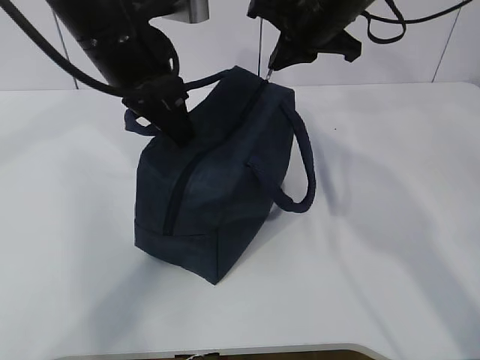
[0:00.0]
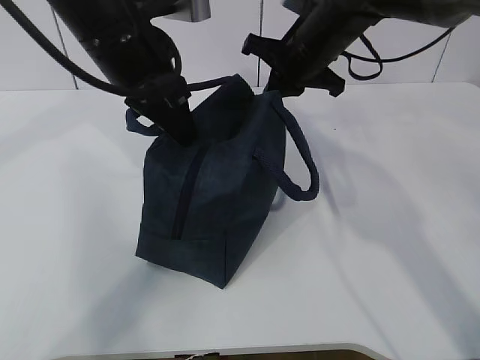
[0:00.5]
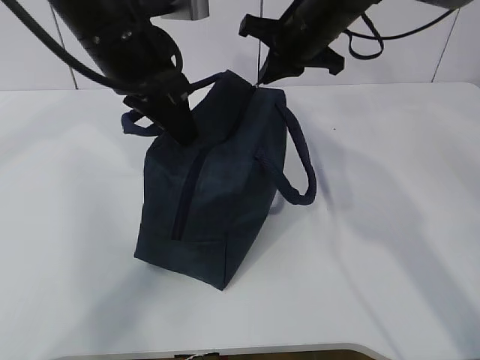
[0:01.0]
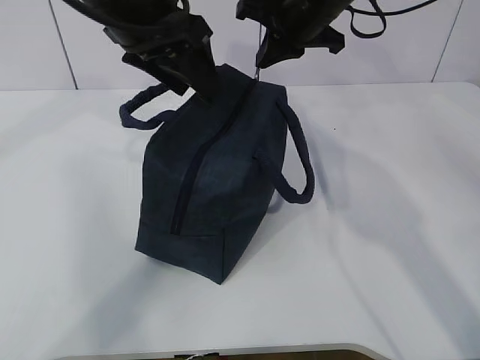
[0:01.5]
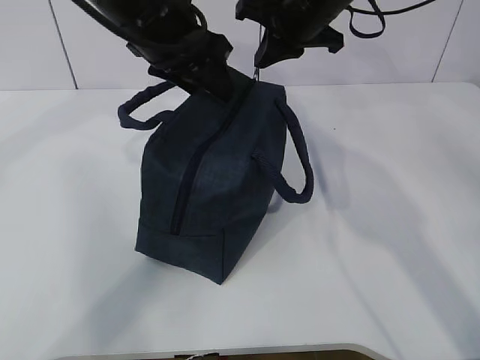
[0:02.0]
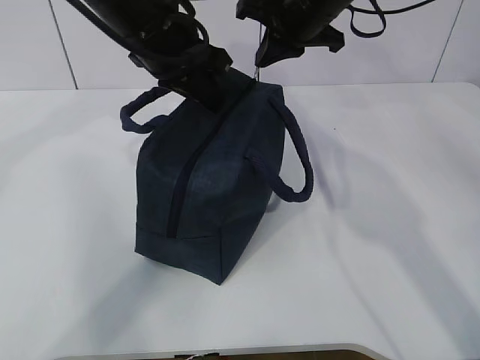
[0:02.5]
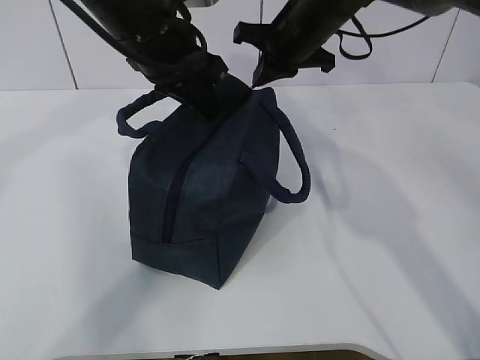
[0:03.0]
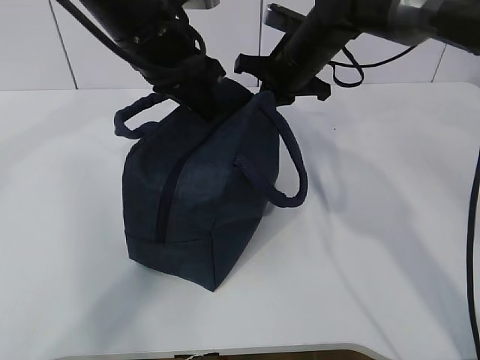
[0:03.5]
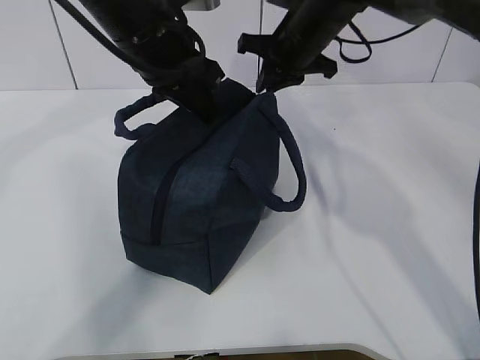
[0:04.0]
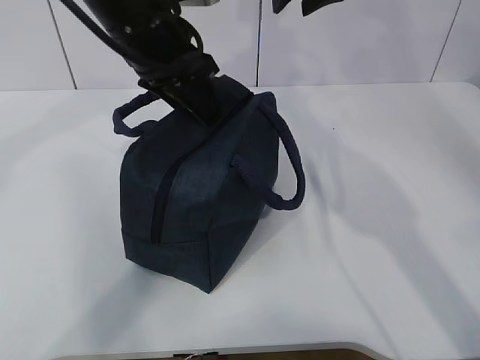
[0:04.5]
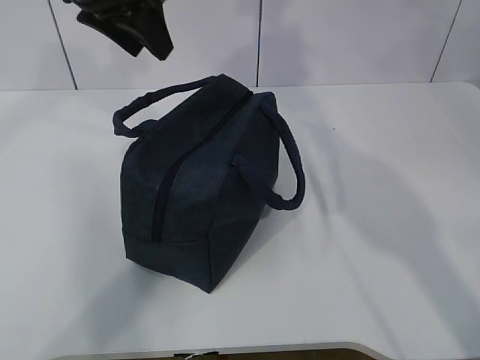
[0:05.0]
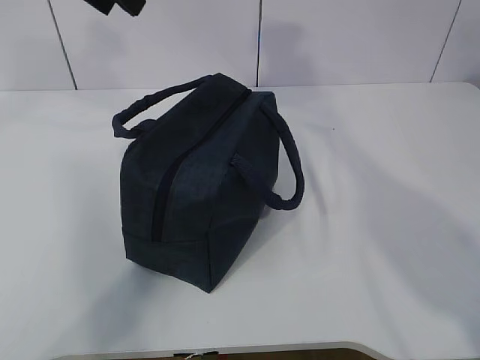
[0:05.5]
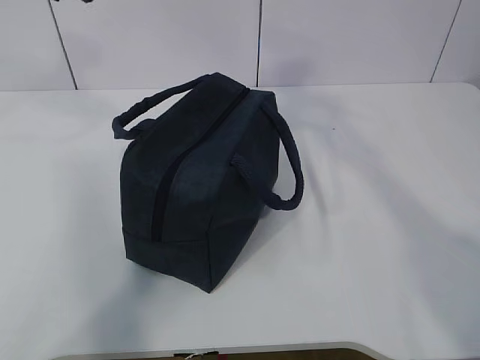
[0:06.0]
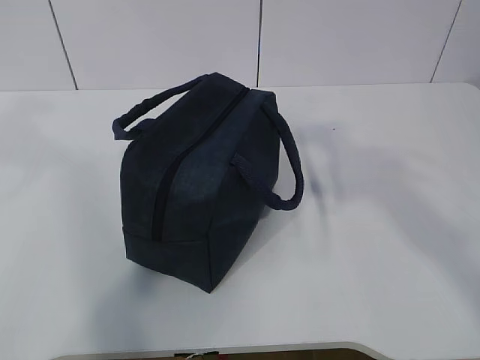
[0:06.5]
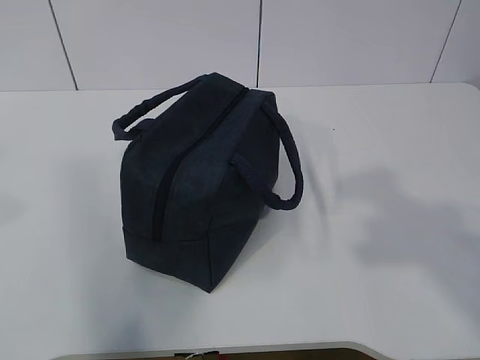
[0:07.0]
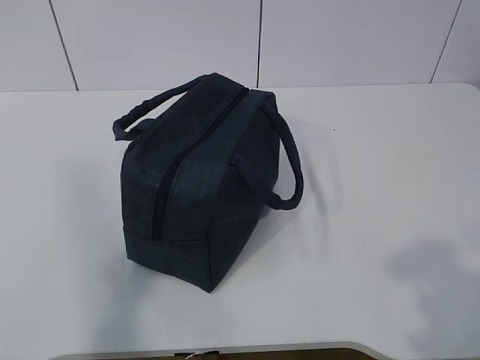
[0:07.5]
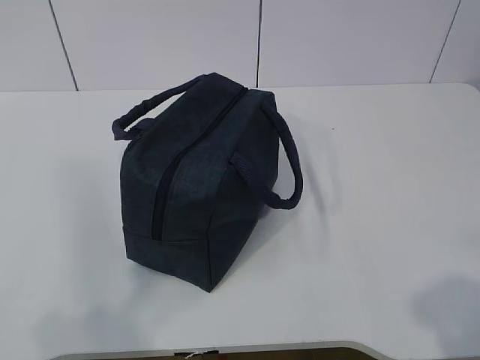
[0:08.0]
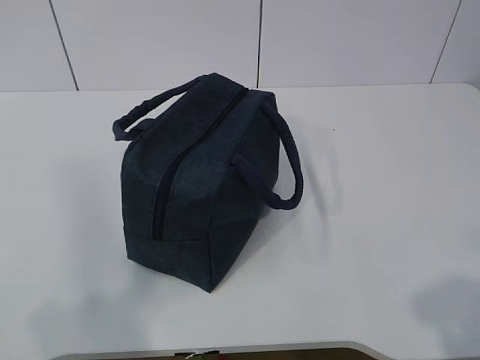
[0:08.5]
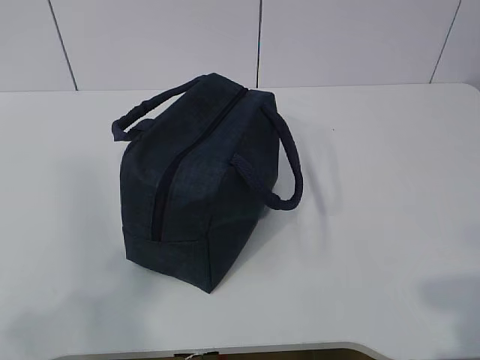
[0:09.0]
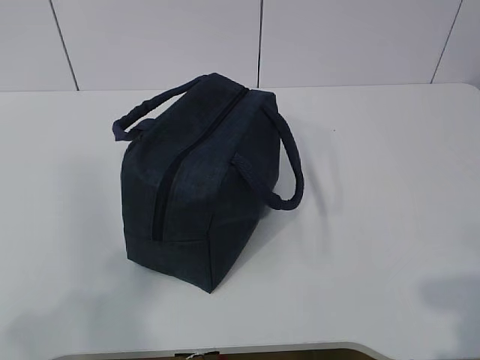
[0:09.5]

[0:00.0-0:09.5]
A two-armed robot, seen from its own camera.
0:00.0 to 0:02.0: The left gripper opens up.
0:02.0 to 0:04.0: The left gripper closes, while the right gripper changes place by approximately 5 cm.
0:04.0 to 0:05.5: The left gripper travels upward and to the left by roughly 15 cm, and opens; the right gripper travels upward and backward by roughly 25 cm, and opens.
0:05.5 to 0:07.5: The right gripper moves backward, about 35 cm; the left gripper shifts approximately 40 cm backward and to the left.
